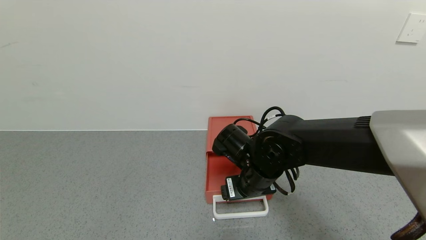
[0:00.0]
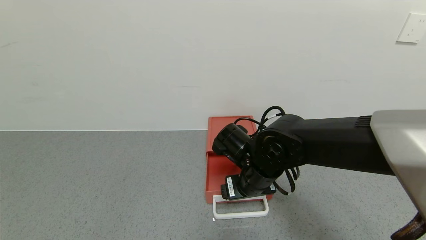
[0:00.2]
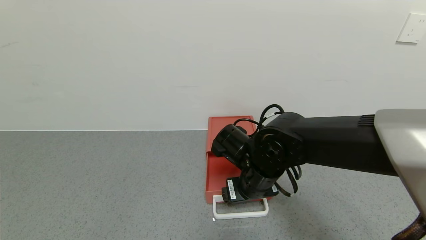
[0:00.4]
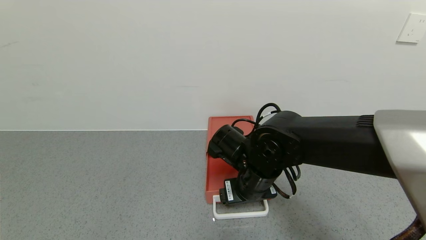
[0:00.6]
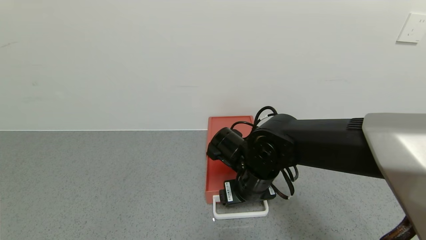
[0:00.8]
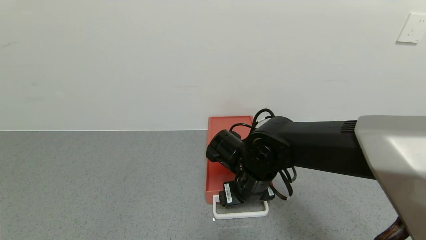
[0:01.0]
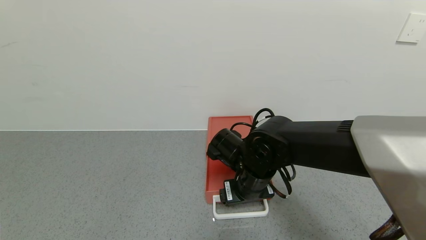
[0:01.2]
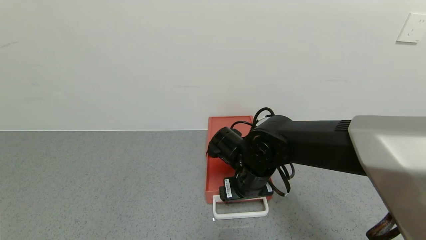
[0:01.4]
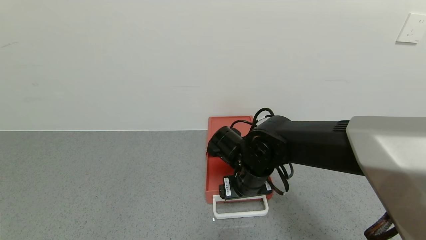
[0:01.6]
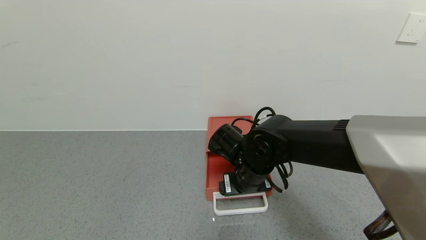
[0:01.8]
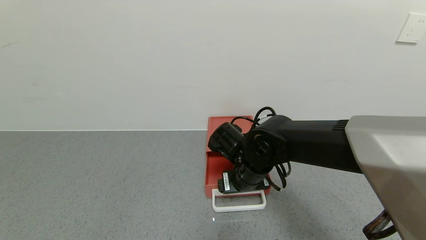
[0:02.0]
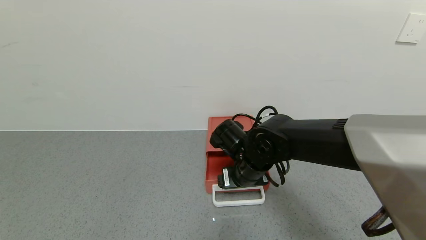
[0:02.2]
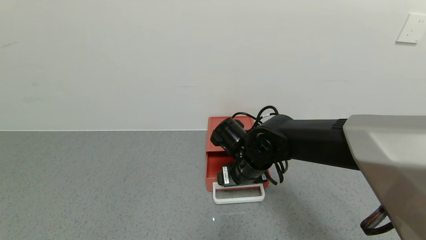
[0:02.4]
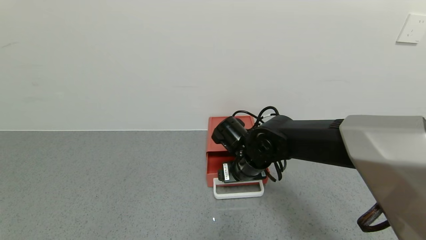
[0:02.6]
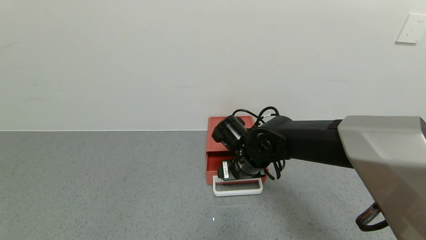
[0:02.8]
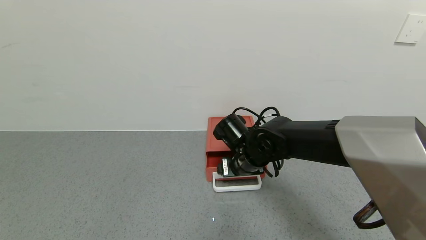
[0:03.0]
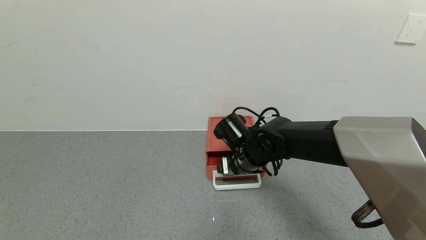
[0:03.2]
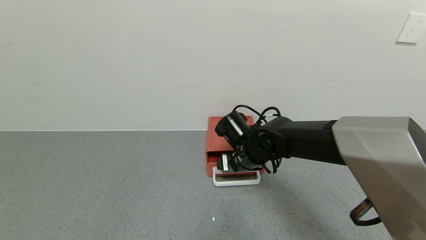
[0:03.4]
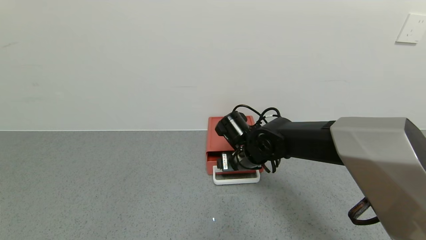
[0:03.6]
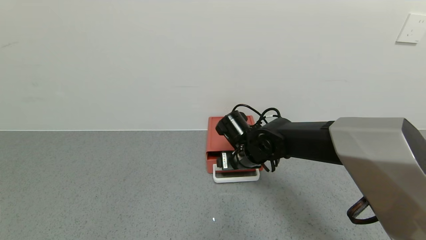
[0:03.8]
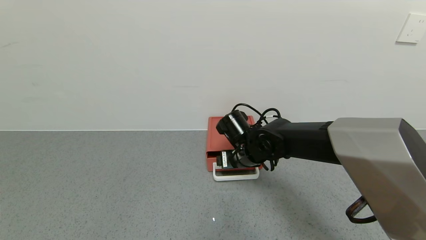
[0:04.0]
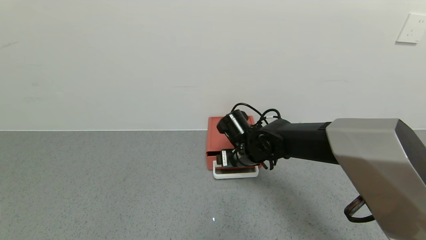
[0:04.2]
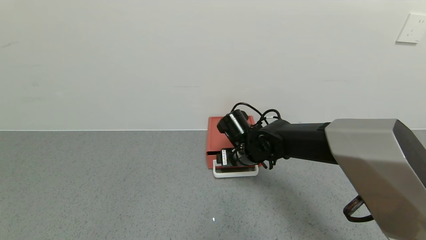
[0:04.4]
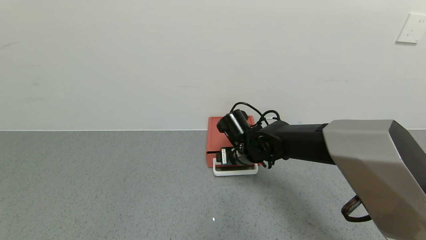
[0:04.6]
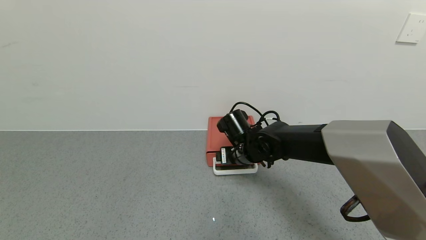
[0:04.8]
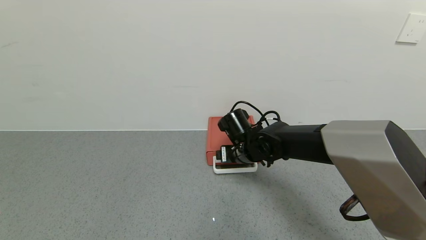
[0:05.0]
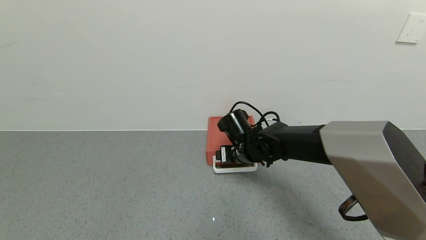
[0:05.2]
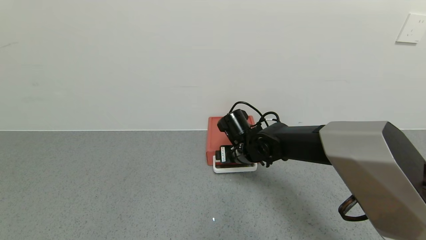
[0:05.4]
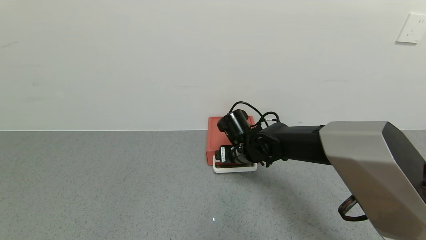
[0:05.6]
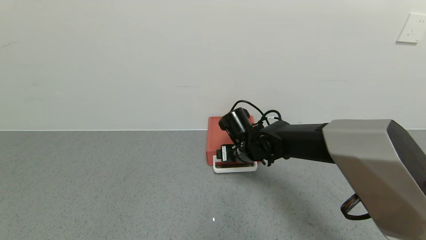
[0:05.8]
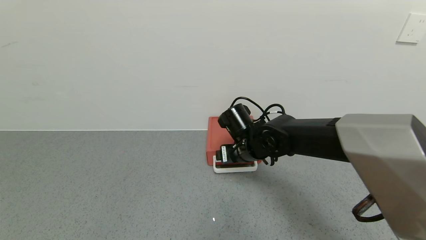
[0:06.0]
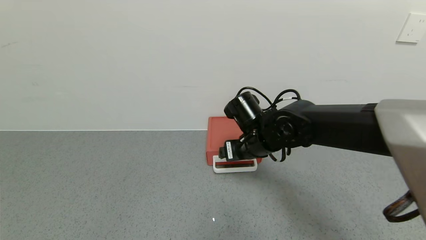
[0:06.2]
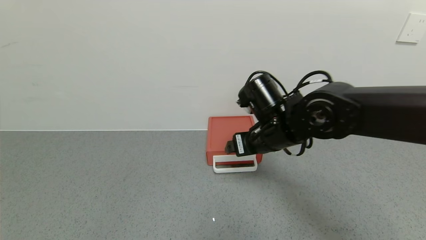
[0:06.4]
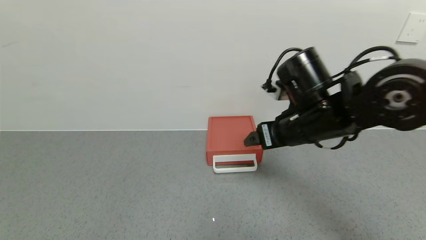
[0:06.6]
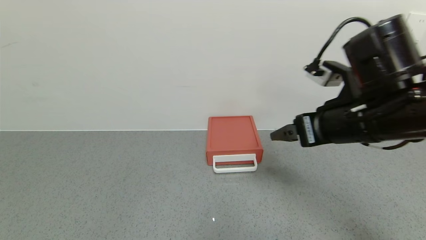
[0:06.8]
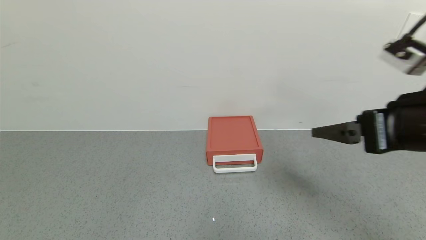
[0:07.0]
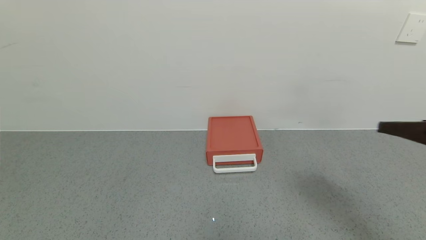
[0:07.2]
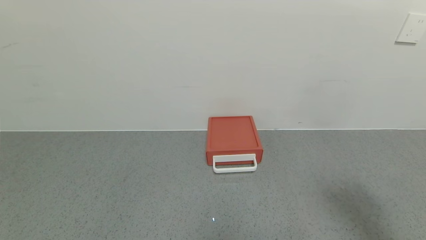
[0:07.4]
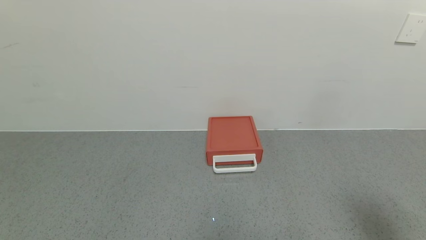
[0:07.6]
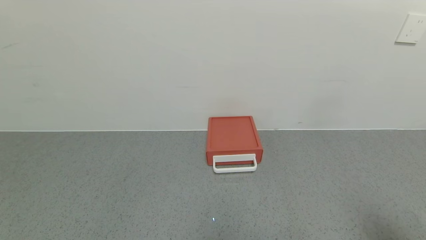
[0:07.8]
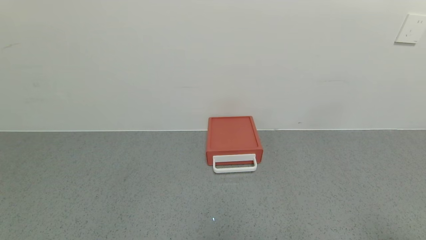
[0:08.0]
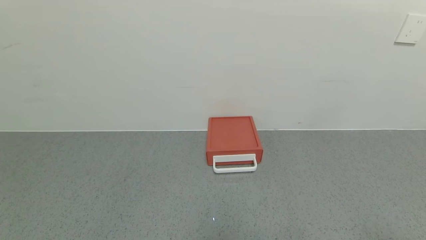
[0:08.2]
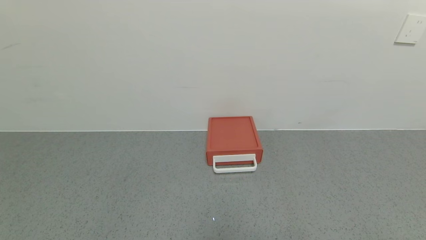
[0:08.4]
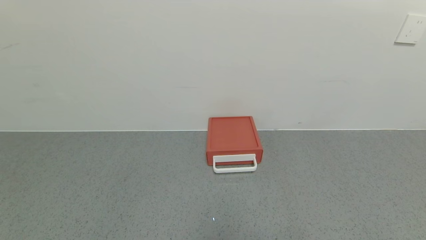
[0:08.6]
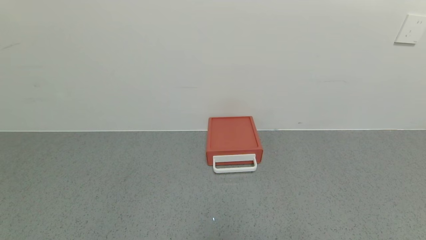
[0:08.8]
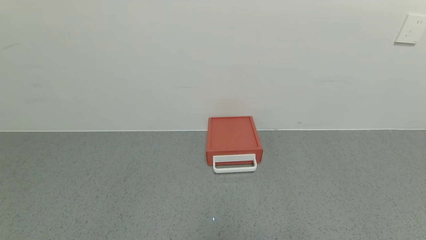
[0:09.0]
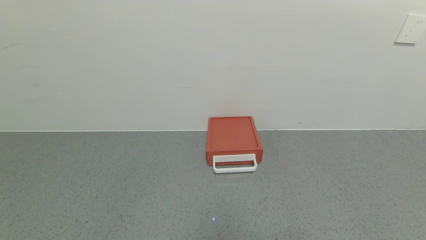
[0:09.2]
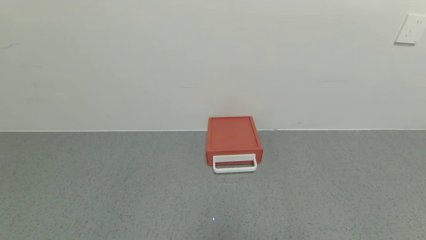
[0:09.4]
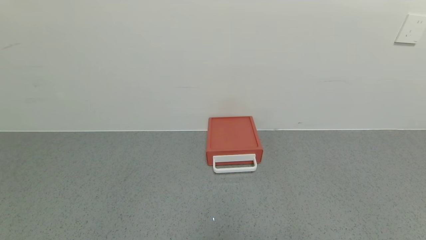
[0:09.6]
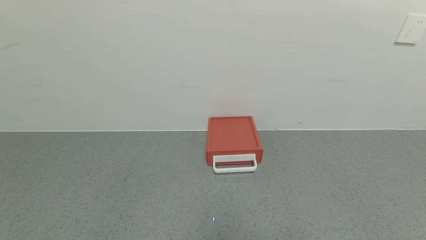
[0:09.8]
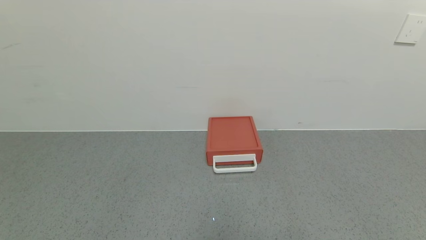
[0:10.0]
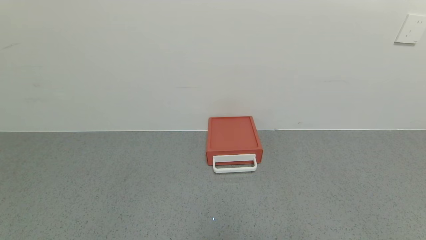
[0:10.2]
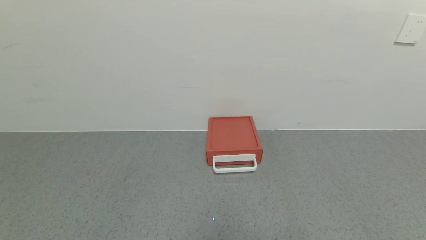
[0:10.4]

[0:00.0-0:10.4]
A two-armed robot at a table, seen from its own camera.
Task of the whole recording: use the gripper to open the drawer and close the red drawer.
Step, 0:00.0 to 0:06.4: Close the red drawer with the right gripper.
0:00.0 to 0:01.4: Both grippers stay put.
0:01.4 to 0:03.0: The right gripper heads forward, covering approximately 5 cm.
0:03.0 to 0:06.0: The grippers make only small movements.
0:06.0 to 0:07.4: The right gripper goes approximately 40 cm backward, to the right and upward.
0:07.4 to 0:09.0: The right gripper shifts approximately 20 cm backward and downward.
